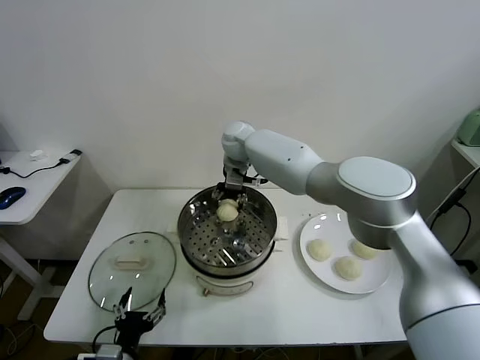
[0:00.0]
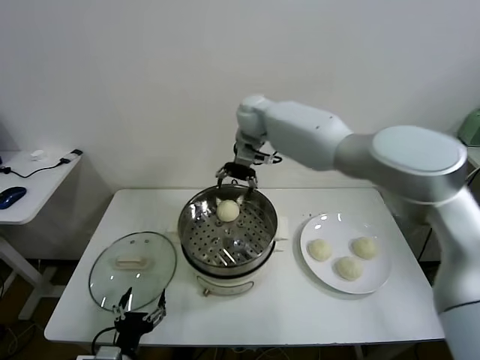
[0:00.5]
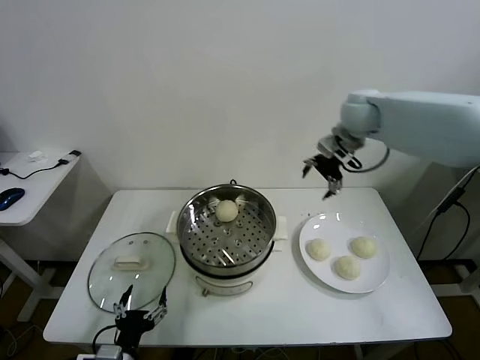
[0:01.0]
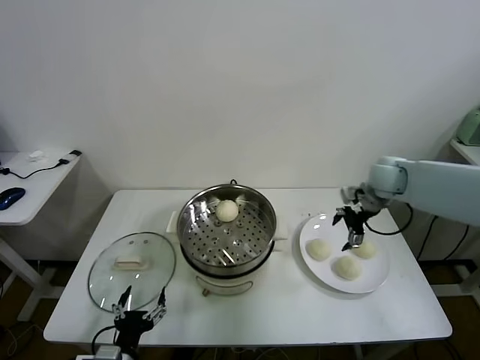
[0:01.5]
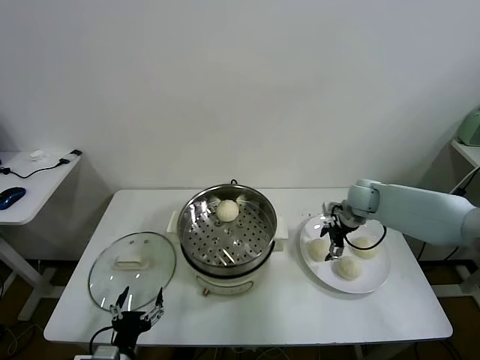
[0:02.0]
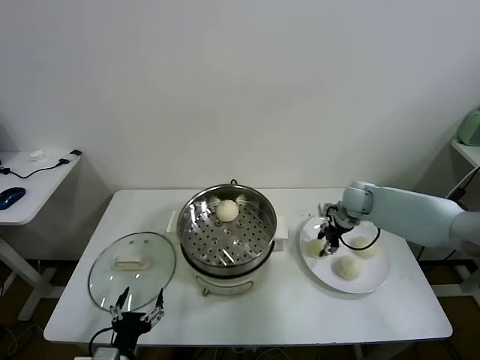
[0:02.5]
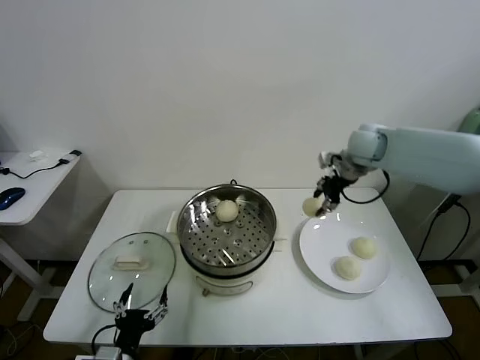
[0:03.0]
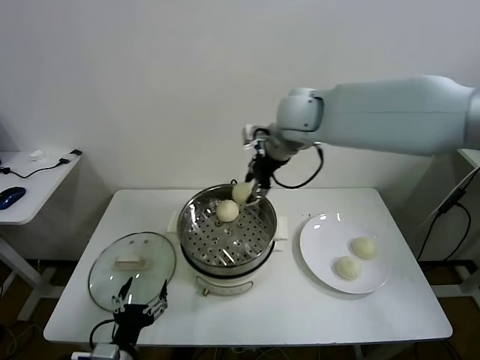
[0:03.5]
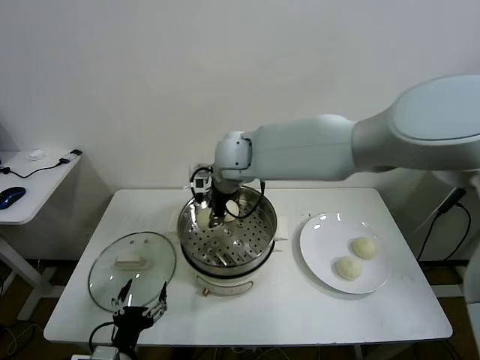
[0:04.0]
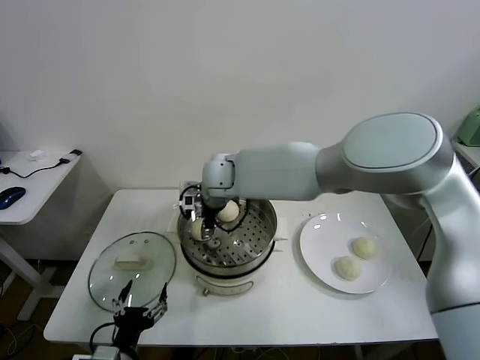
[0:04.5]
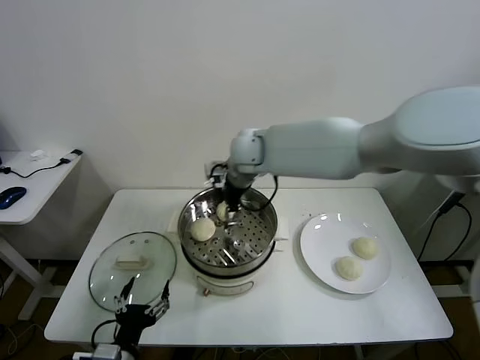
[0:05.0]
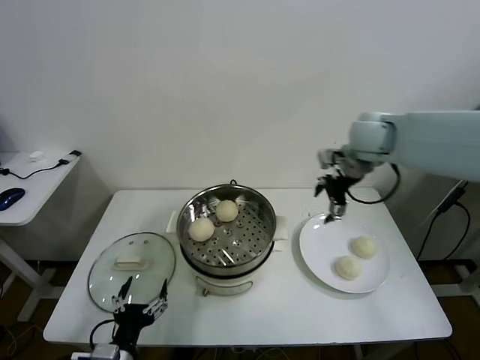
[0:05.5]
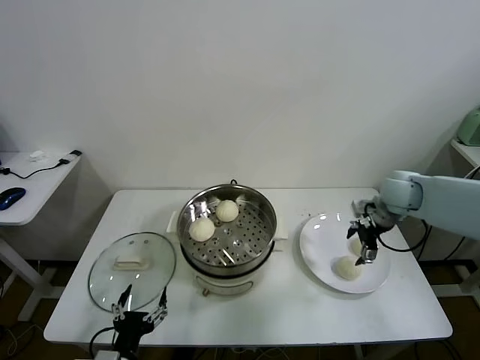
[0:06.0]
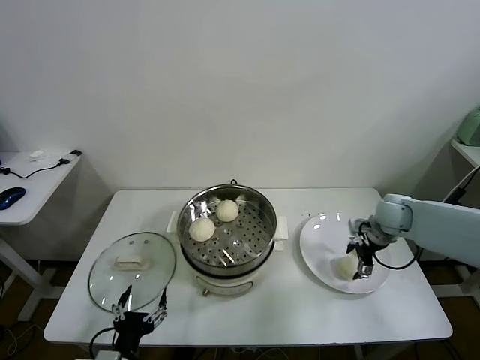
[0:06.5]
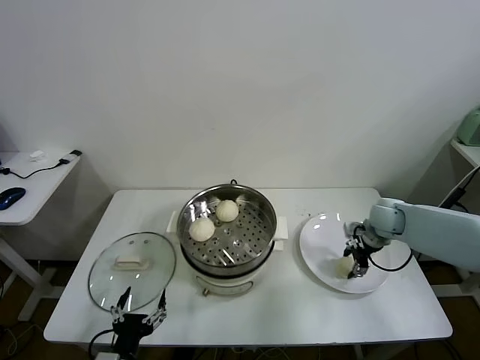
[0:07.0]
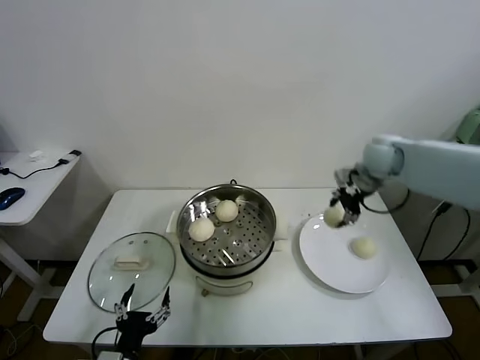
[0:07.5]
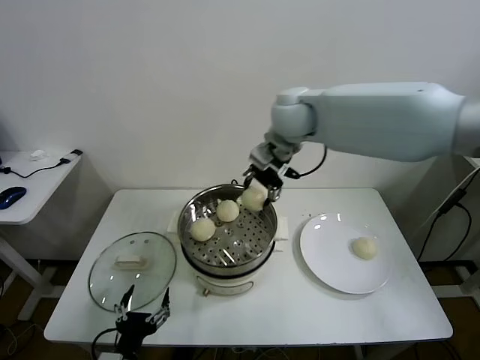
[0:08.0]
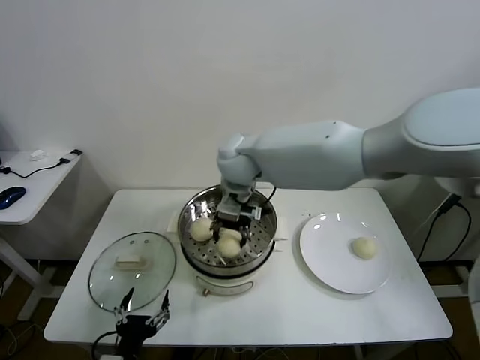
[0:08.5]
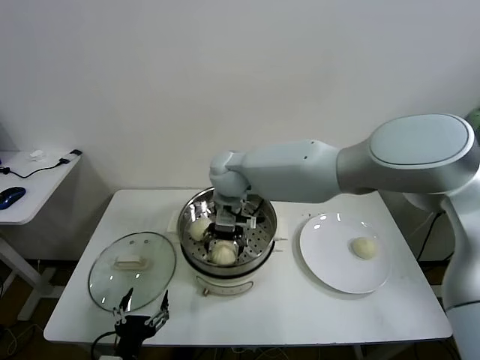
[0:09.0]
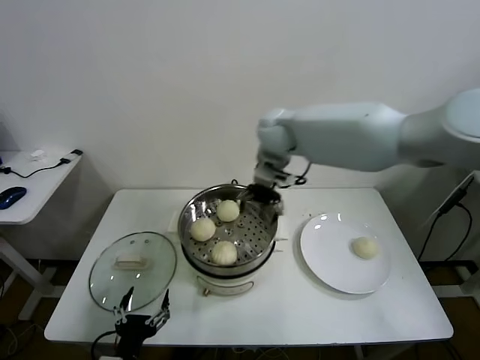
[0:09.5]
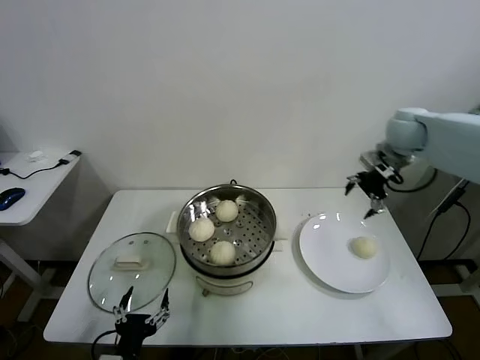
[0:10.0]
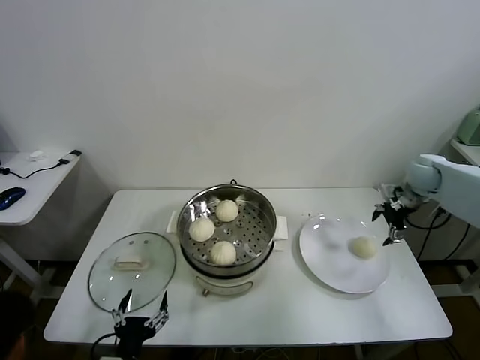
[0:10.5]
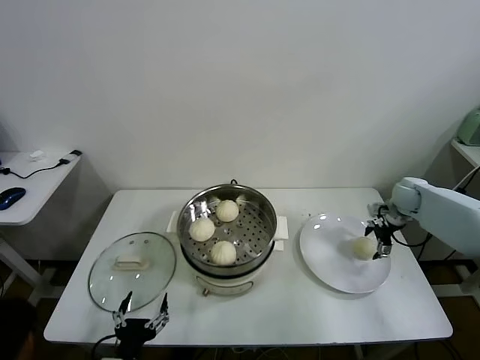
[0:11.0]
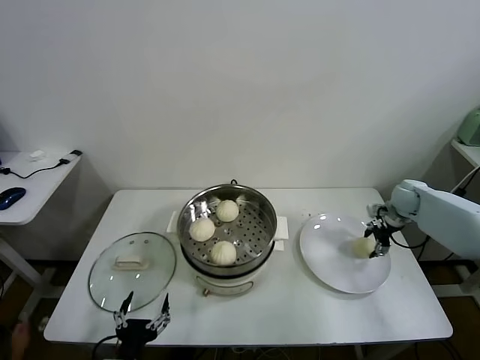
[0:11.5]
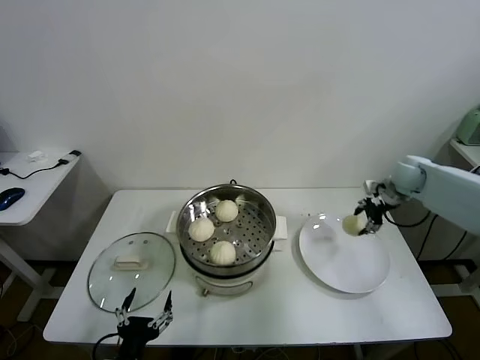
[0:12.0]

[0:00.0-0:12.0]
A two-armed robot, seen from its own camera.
Task of the whole recording: take steamed baozi put them in steamer.
Step, 0:00.5 to 0:02.5: Grasp the baozi in the plate with right gripper.
Step, 0:03.0 to 0:04.5: Place the baozi on the steamer with right gripper.
Step, 0:05.0 to 0:06.5: Grasp the baozi in the plate with right gripper.
Step, 0:07.0 to 0:09.0: Place the baozi on the steamer with right gripper.
Step, 0:09.5 to 0:11.0: Grasp the baozi in the plate with right gripper.
0:00.0 to 0:02.0: The right gripper goes about 35 cm to the right and downward.
0:02.0 to 0:04.0: The right gripper is displaced to the left and upward by approximately 40 cm, and closes.
0:04.0 to 0:06.0: The right gripper shifts about 40 cm to the right, and opens up.
0:06.0 to 0:08.0: The right gripper shifts approximately 35 cm to the left and upward, and closes.
0:08.0 to 0:10.0: The right gripper travels to the right by about 30 cm, and opens its fingers.
0:10.0 to 0:12.0: The right gripper is displaced downward by approximately 10 cm, and closes its fingers.

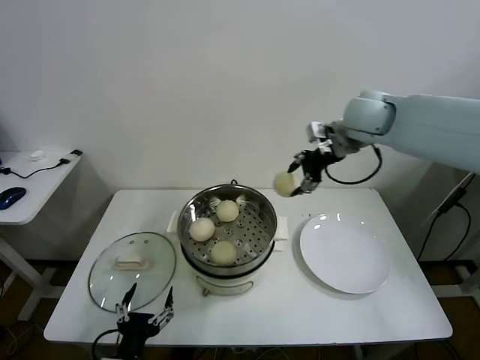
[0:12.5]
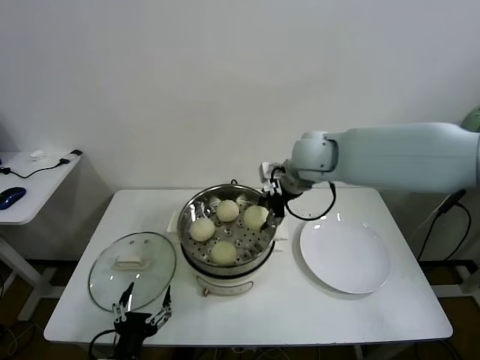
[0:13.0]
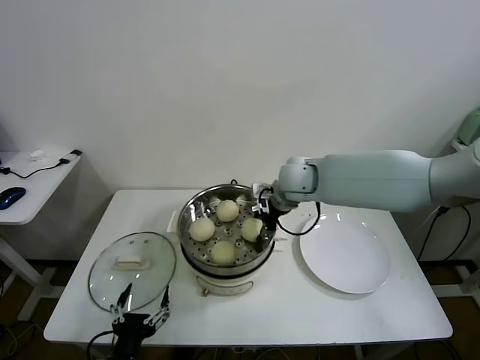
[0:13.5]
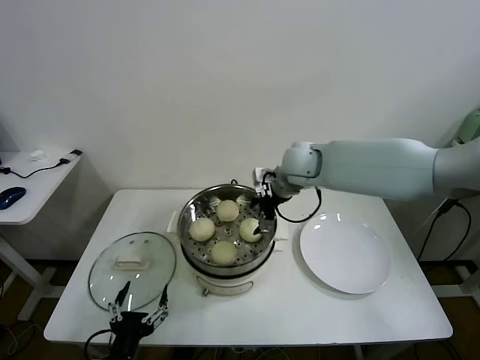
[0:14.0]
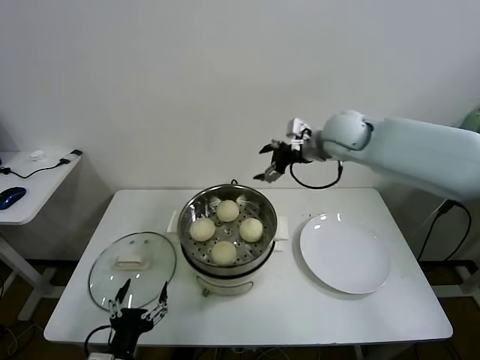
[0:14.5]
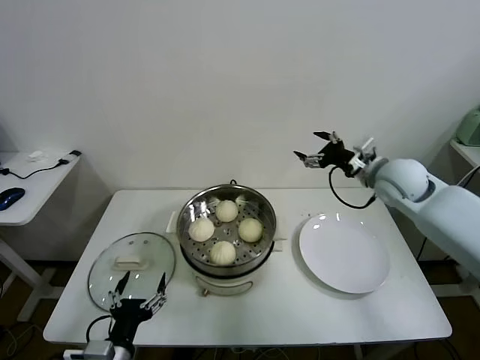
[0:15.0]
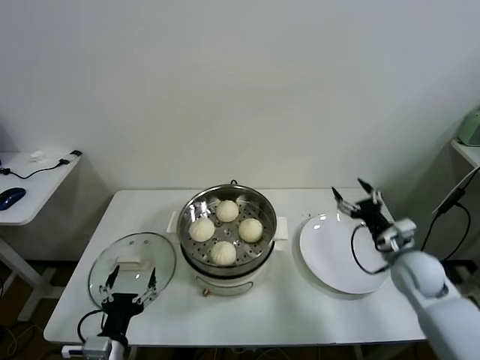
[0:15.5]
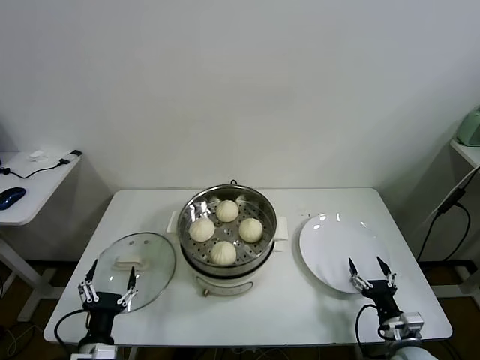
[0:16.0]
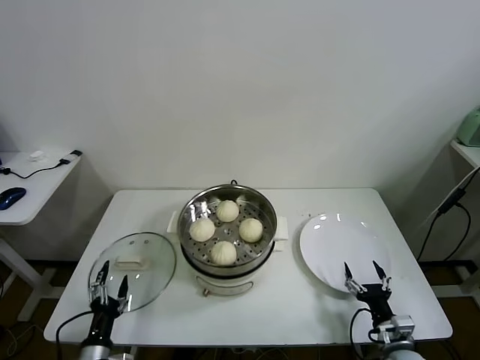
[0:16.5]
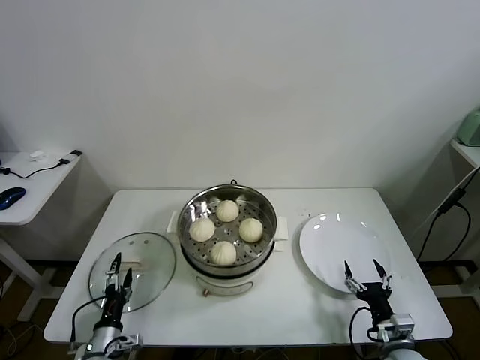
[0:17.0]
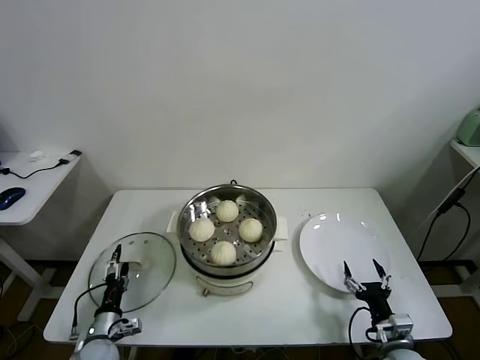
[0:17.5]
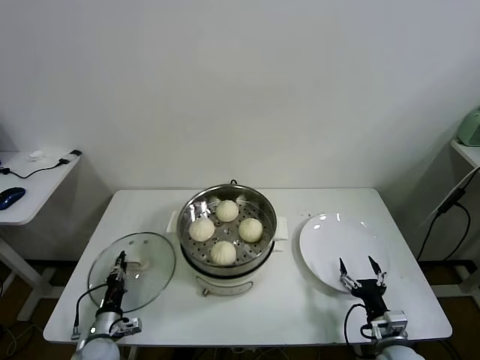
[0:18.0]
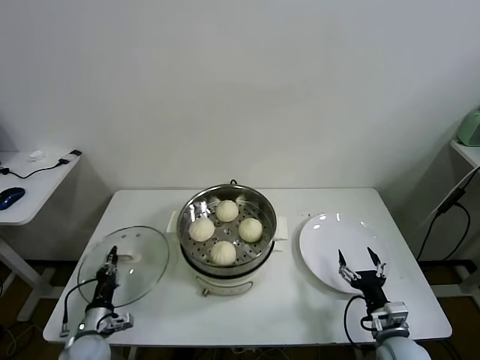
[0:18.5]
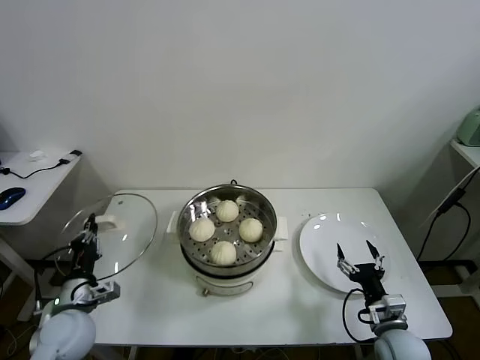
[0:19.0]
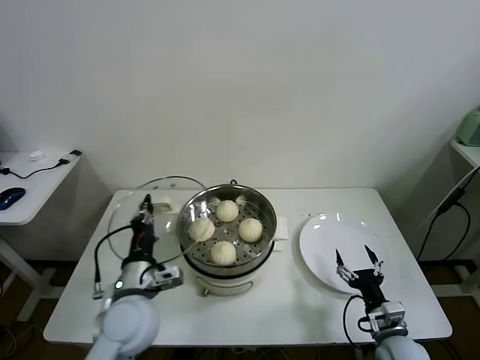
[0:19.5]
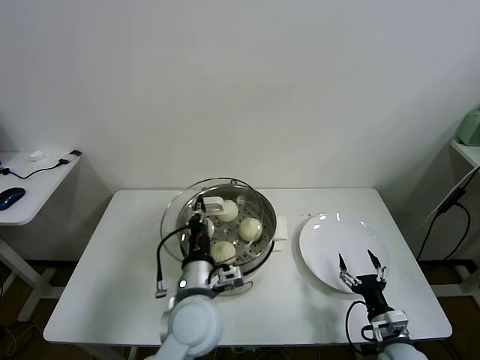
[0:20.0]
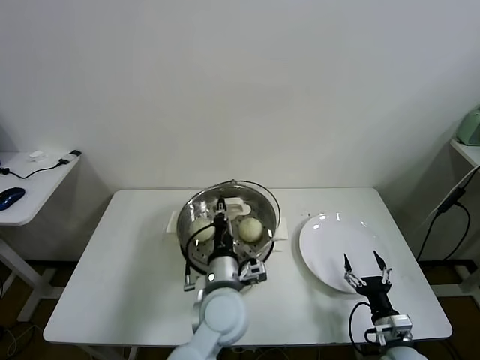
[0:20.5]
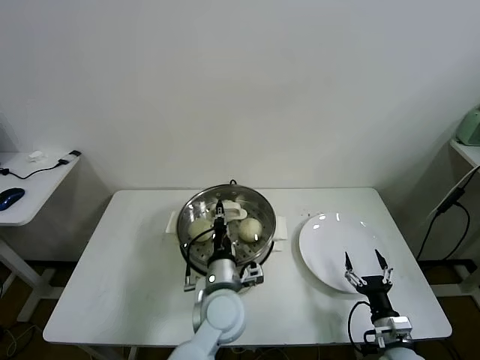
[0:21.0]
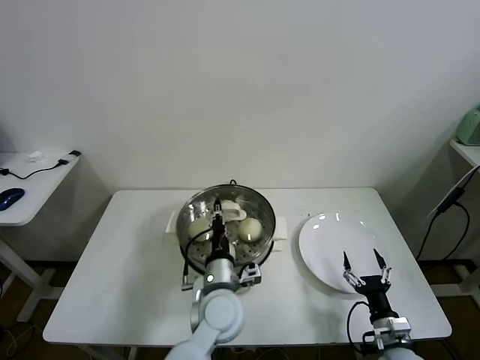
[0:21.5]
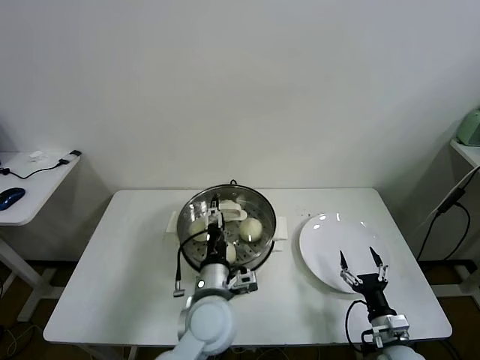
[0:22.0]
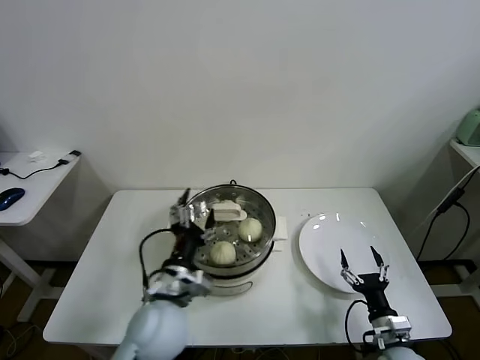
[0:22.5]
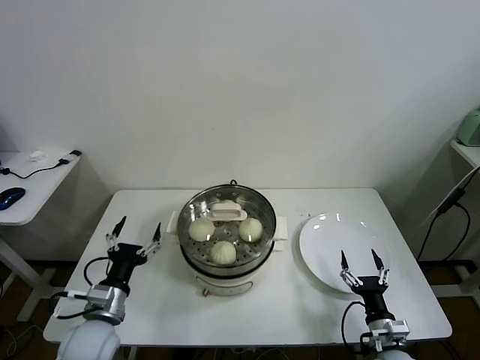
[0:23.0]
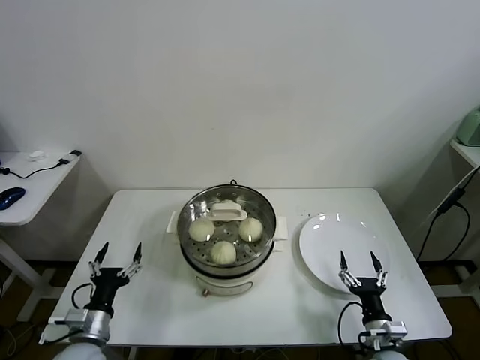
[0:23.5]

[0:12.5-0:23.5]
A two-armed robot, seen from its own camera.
Task of the whole recording: take steamed baozi put them in steamer.
Step, 0:14.0 to 0:18.0: Grasp the pot lid with left gripper.
Step, 0:18.5 to 0:21.5: Place the pot lid on the steamer with left gripper.
0:12.5 to 0:14.5: The right gripper reaches roughly 15 cm downward, then returns, and opens up.
0:14.5 to 0:16.0: The right gripper goes about 50 cm downward and backward; the left gripper goes approximately 5 cm downward.
0:16.0 to 0:18.0: The left gripper is displaced downward, forward and to the left by approximately 15 cm, and closes its fingers.
0:18.0 to 0:20.0: The left gripper shifts approximately 35 cm to the right and upward.
0:20.0 to 0:21.5: The left gripper moves downward and to the right, about 5 cm.
0:21.5 to 0:23.5: The left gripper moves to the left, about 30 cm, and opens up.

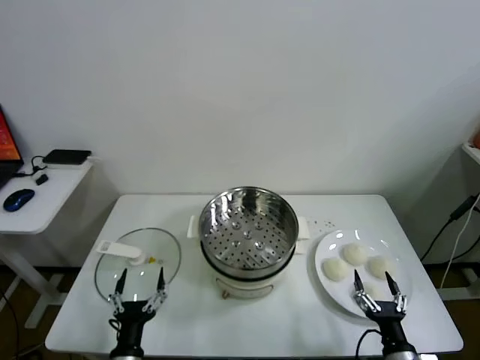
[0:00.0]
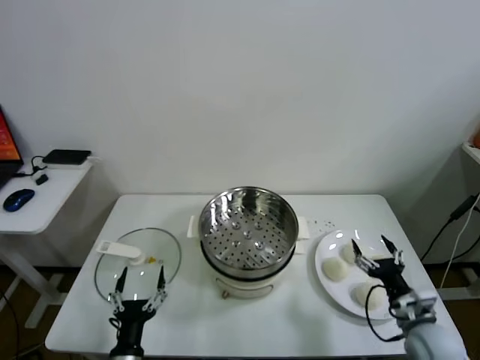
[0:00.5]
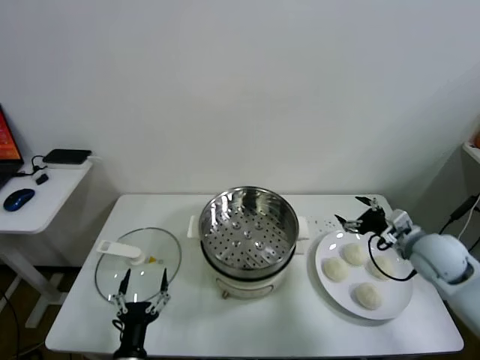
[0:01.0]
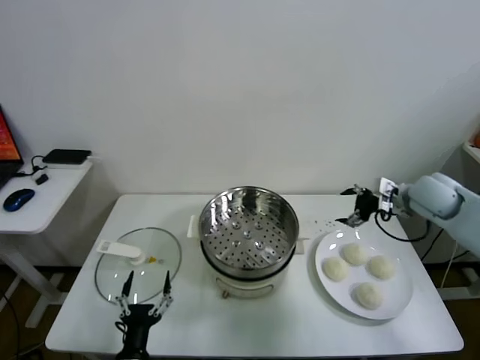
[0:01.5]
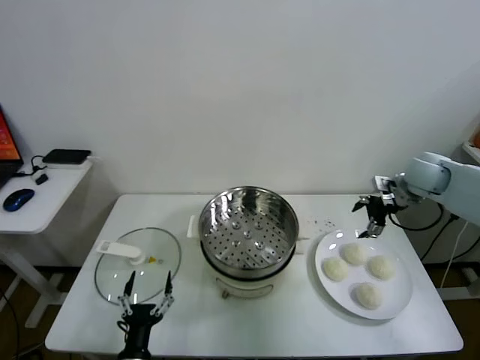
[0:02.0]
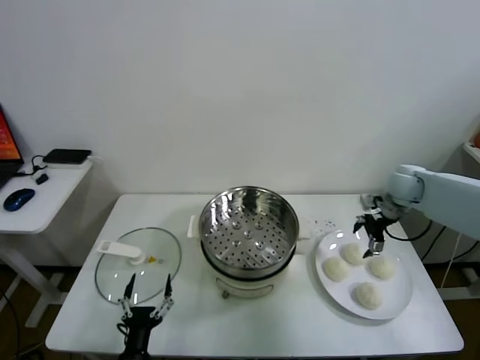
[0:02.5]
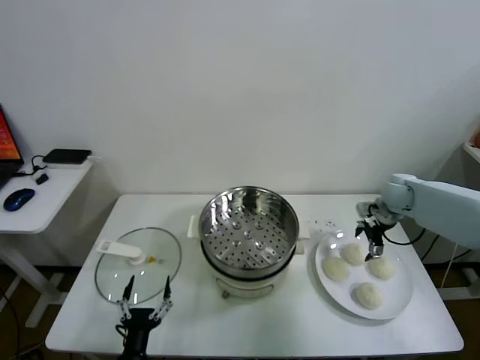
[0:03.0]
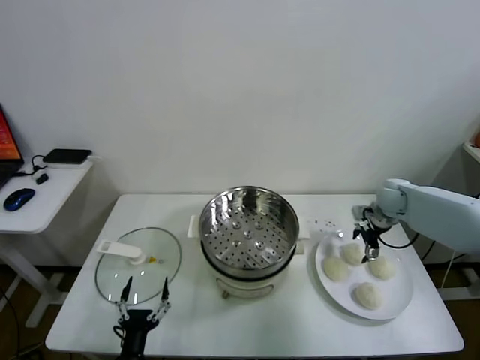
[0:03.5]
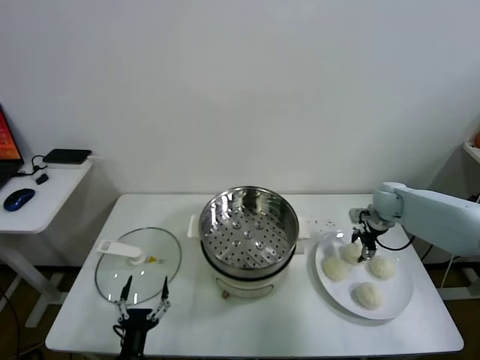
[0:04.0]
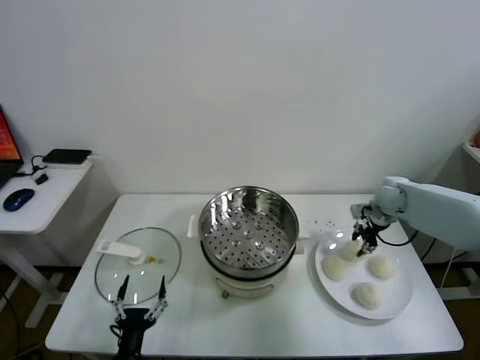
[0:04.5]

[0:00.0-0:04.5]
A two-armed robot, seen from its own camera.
Task of the whole recording: take steamed baozi put them in steamer.
Step, 0:00.0 to 0:04.0: Grasp the baozi in the plate with right gripper.
0:02.0 to 0:04.5: The right gripper goes about 10 cm downward, and closes up.
